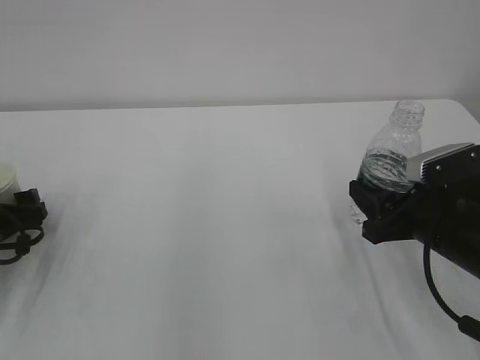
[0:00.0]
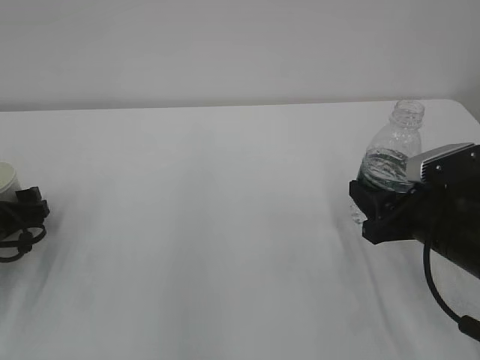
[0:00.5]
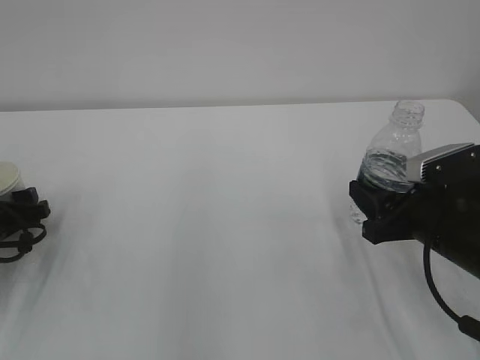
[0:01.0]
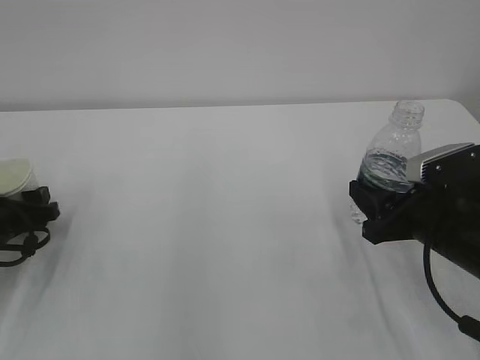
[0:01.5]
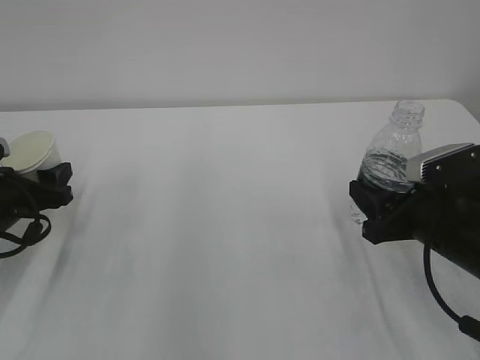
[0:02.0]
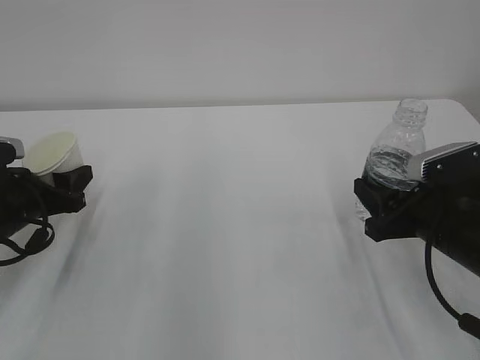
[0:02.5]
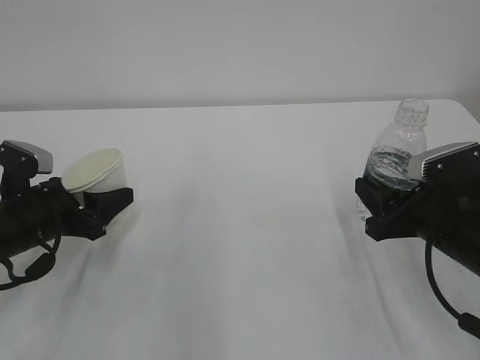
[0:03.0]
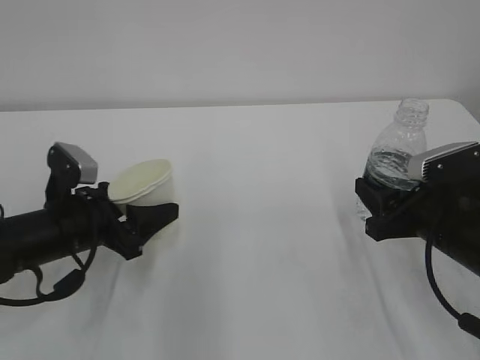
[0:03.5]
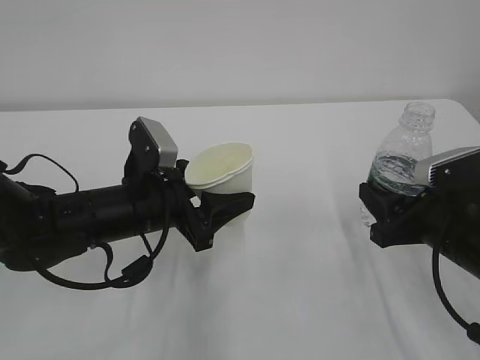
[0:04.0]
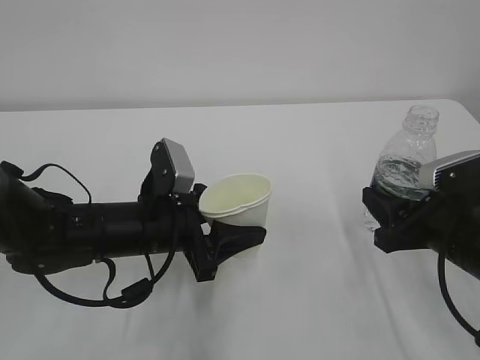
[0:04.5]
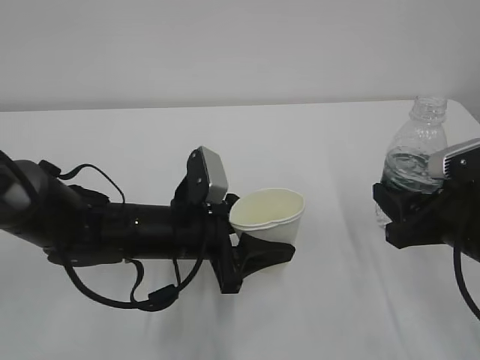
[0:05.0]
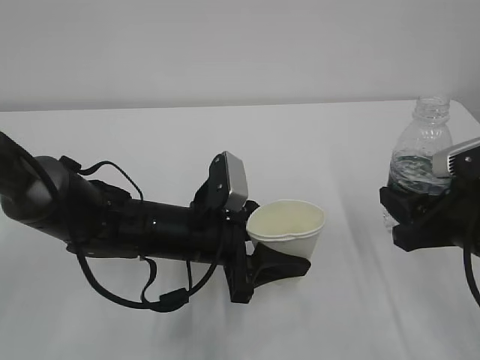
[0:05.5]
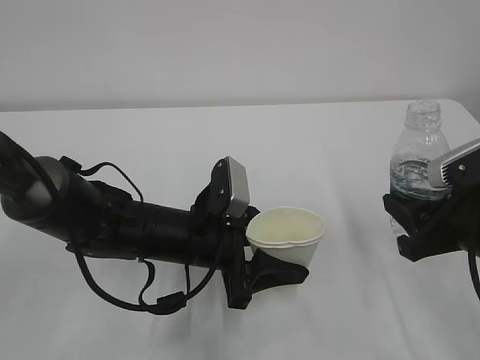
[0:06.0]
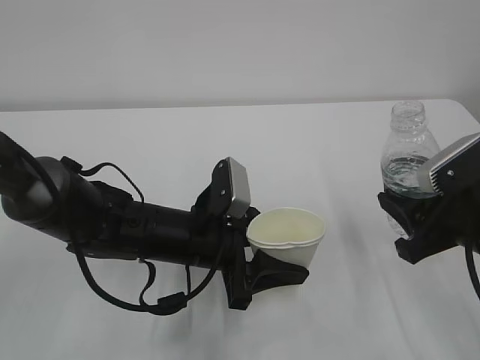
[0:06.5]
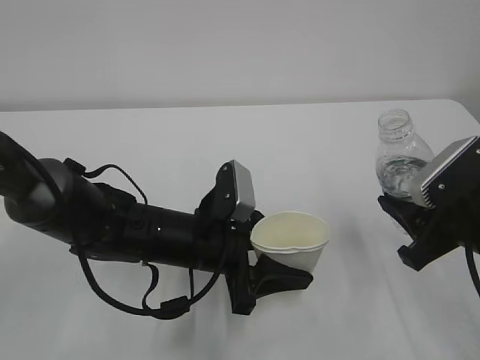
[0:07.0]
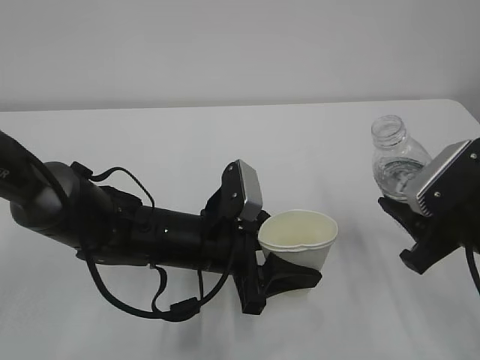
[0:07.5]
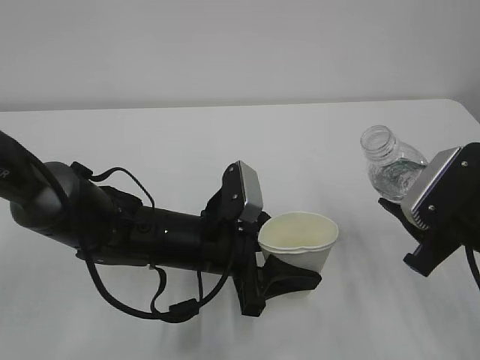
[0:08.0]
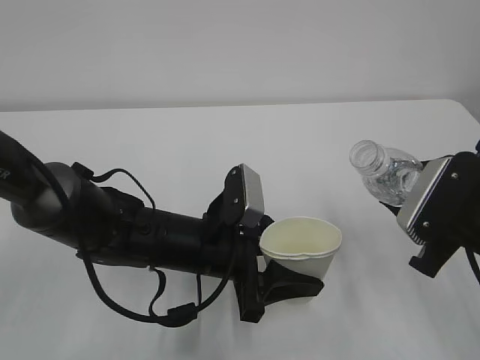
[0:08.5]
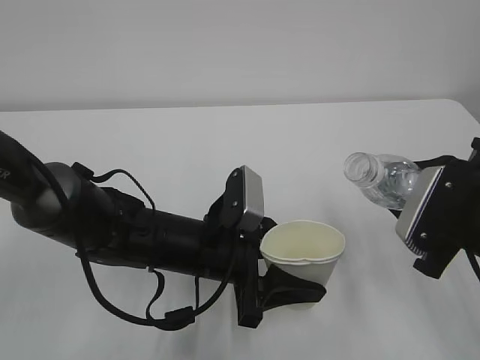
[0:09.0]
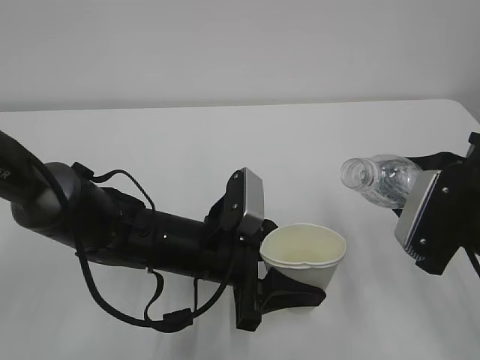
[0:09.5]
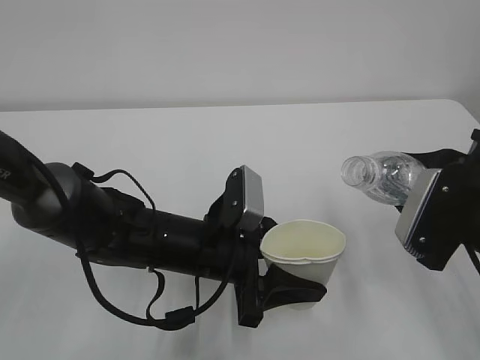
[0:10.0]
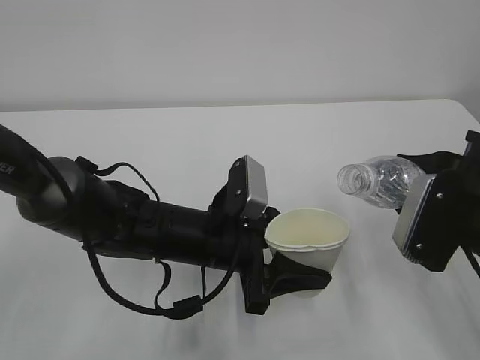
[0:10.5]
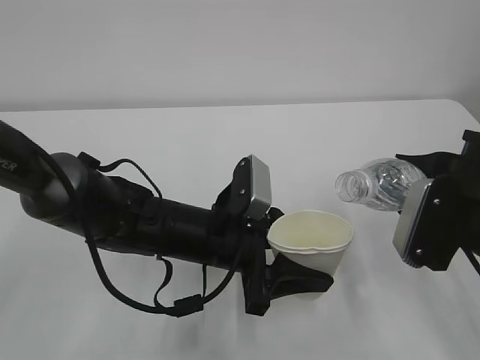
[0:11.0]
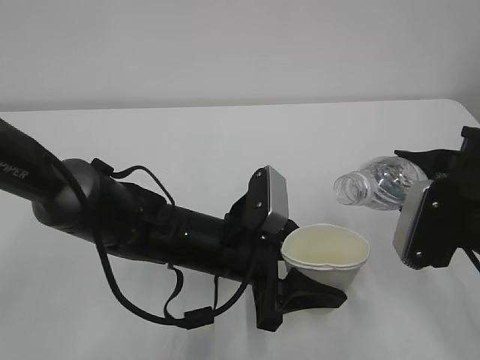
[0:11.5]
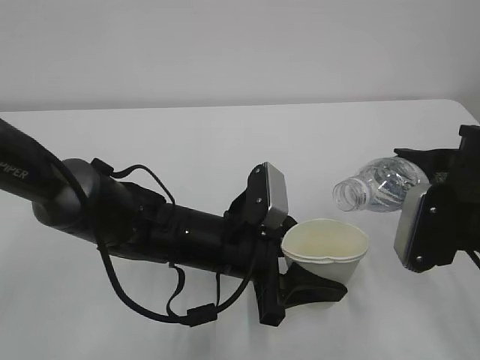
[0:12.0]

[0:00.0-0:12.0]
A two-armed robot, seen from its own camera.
0:00.0 to 0:02.0: The left gripper closes its fingers.
0:02.0 to 0:04.0: The left gripper shifts roughly 20 cm to the right.
0:04.0 to 0:06.0: The left gripper goes roughly 5 cm to the right.
0:10.0 to 0:12.0: There are only small adjustments of the grippers.

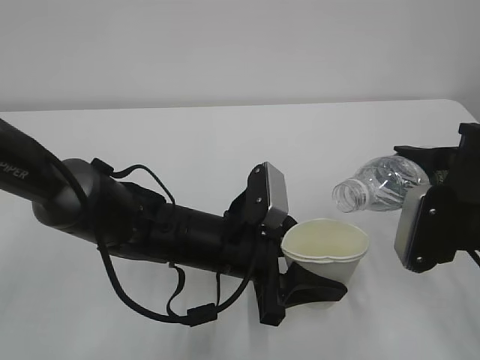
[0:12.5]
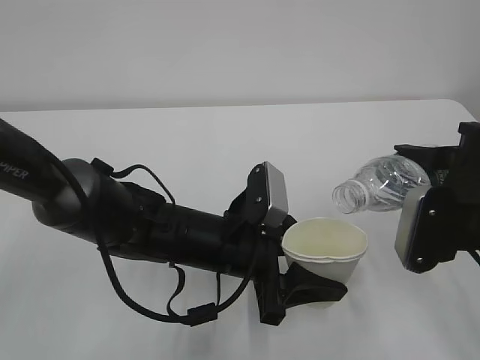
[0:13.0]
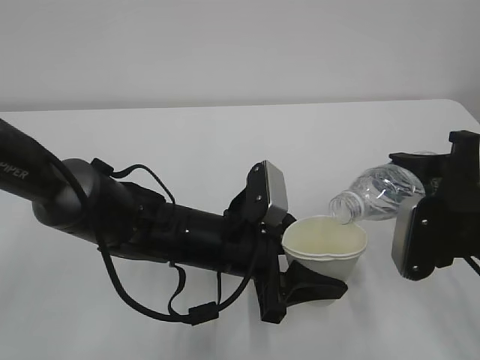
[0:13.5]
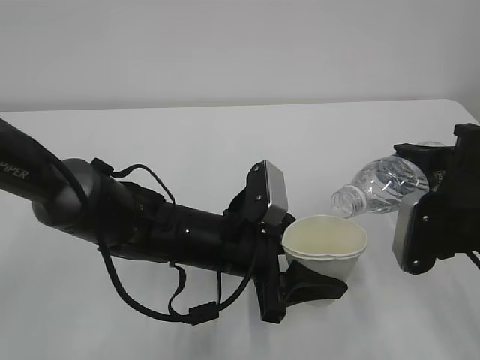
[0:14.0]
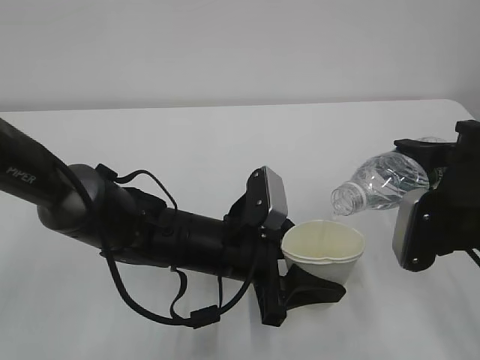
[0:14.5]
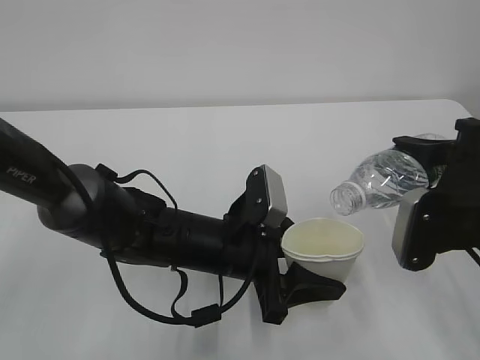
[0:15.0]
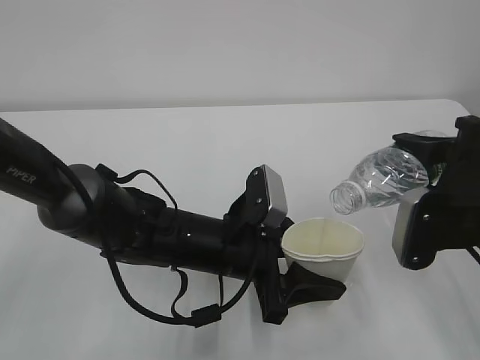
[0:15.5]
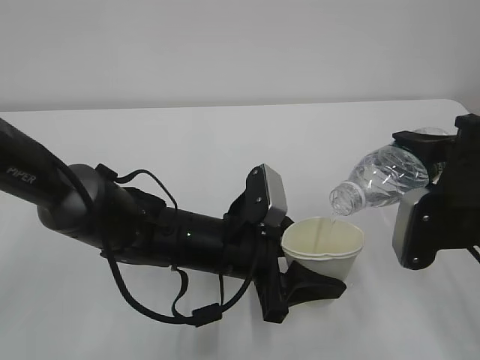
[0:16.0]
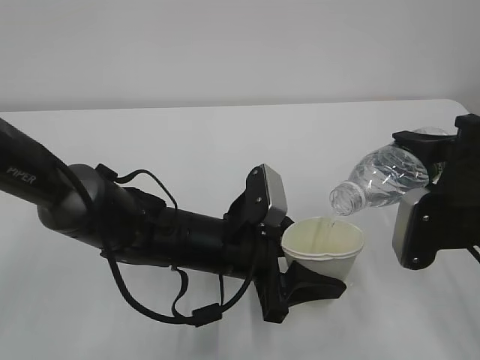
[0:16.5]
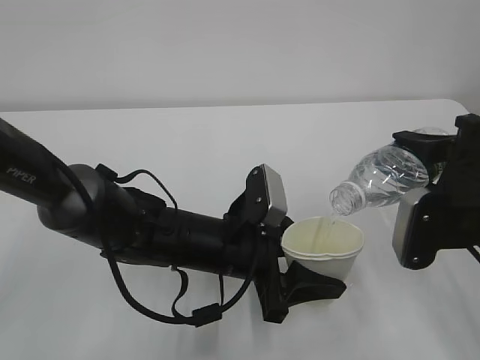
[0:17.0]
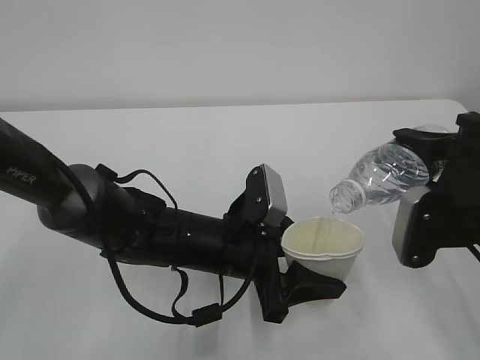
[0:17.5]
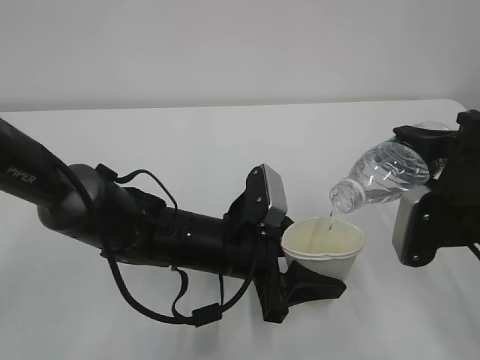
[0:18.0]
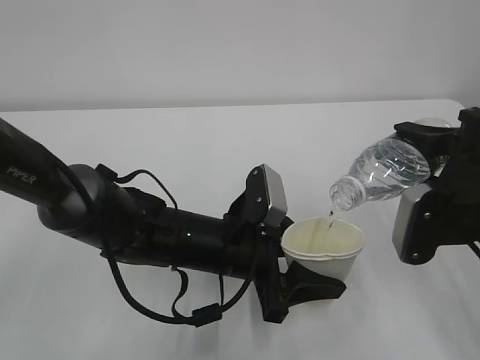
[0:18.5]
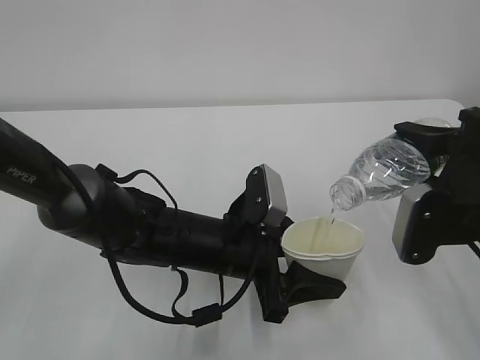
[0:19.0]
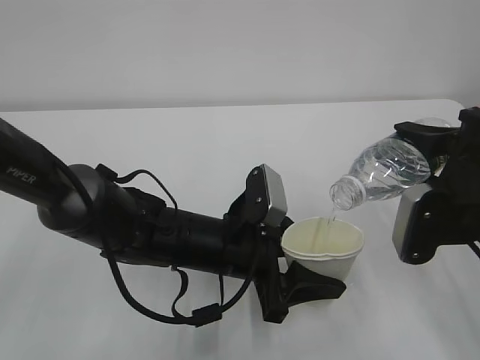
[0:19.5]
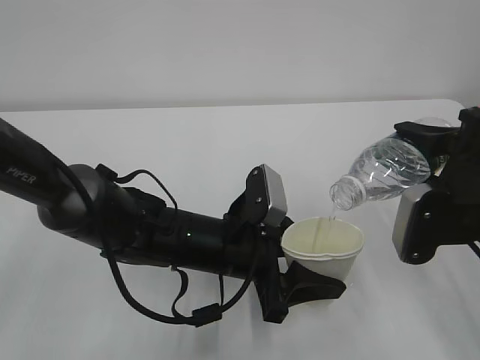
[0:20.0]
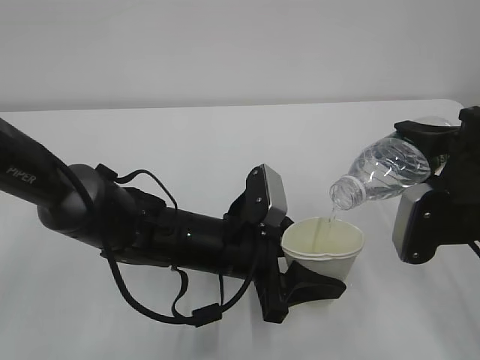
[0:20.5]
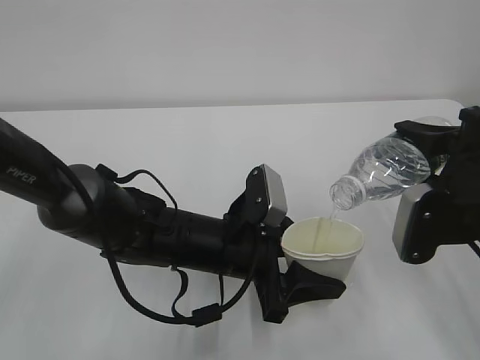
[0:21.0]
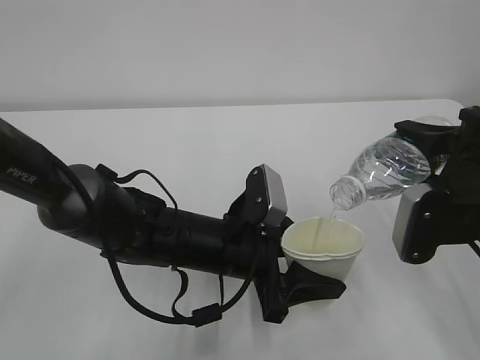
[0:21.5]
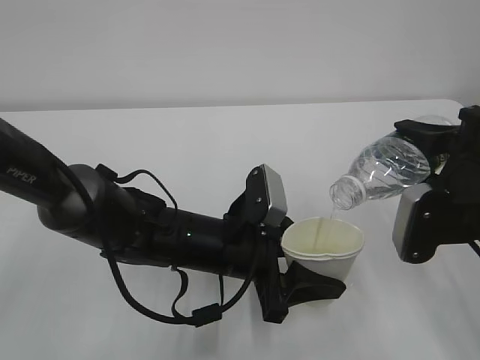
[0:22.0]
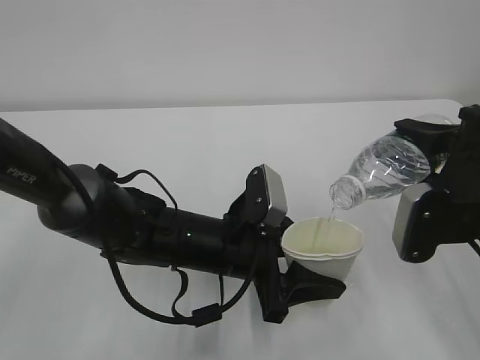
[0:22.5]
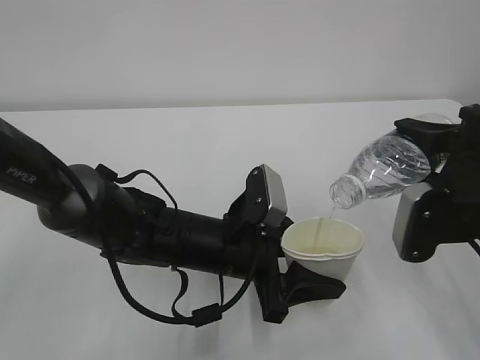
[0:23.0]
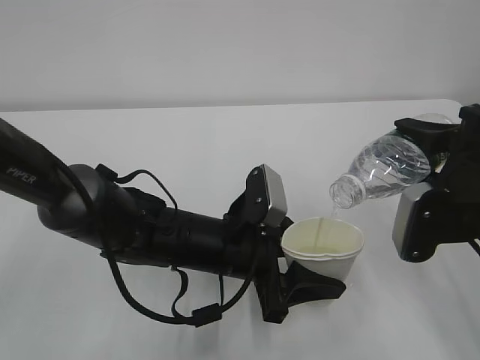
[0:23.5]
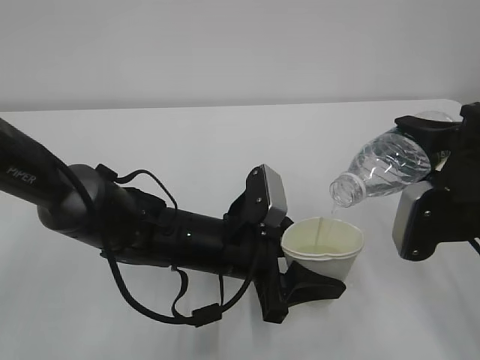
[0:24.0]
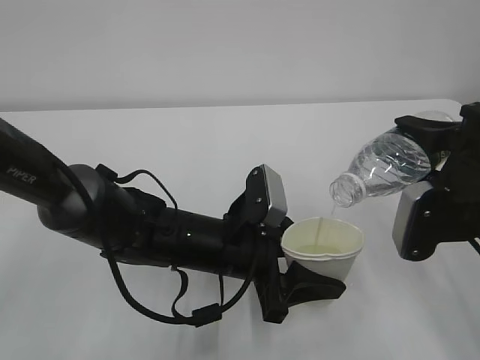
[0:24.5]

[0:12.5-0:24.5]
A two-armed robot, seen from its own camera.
0:12.5 to 0:14.5: There are only small adjustments of the grippers.
0:14.5 to 0:16.5: Both grippers stay put.
0:16.5 to 0:22.5: Neither gripper changes place.
0:22.5 to 0:24.5: Both grippers stay about where they are.

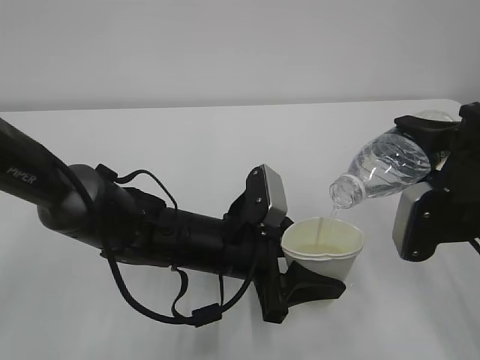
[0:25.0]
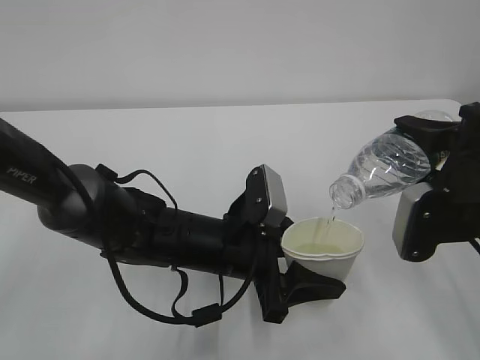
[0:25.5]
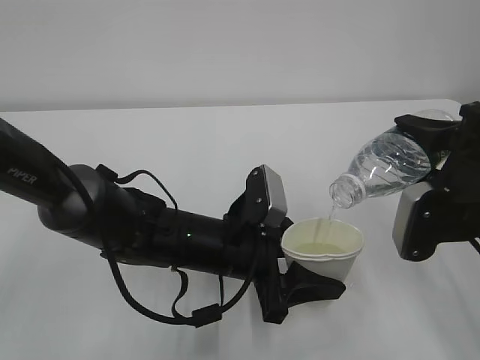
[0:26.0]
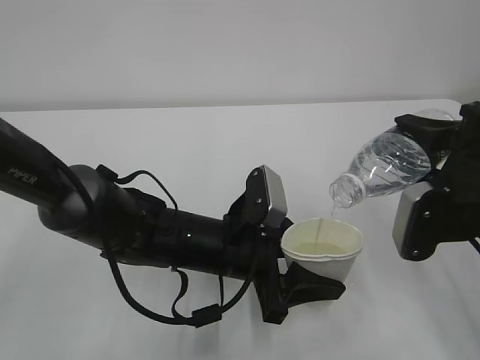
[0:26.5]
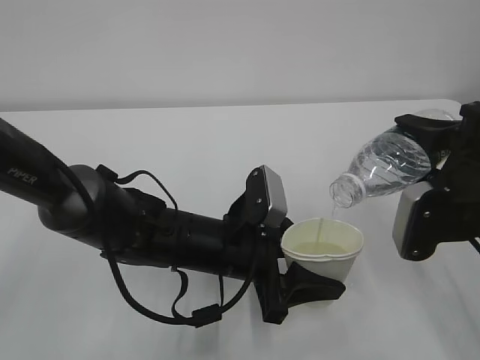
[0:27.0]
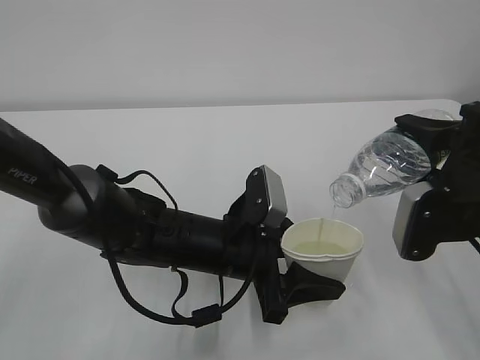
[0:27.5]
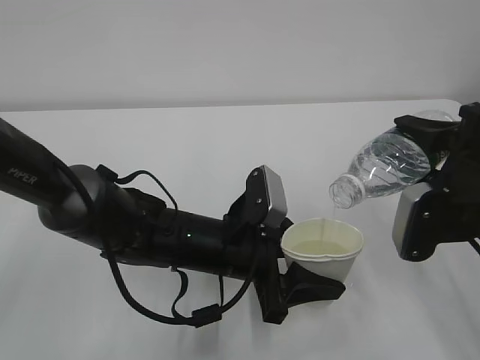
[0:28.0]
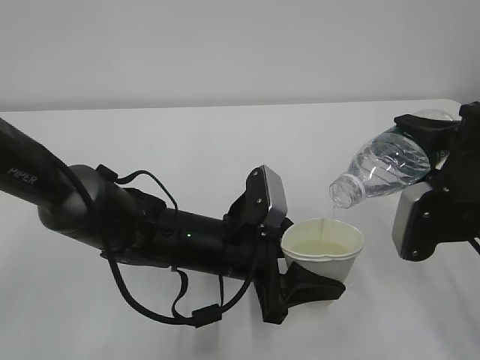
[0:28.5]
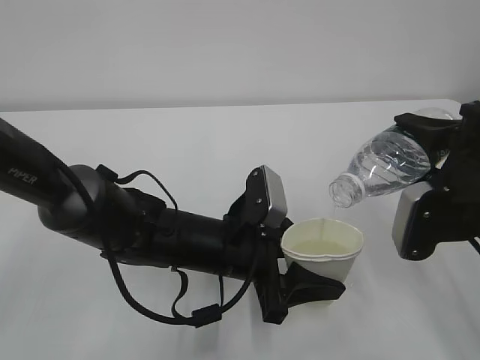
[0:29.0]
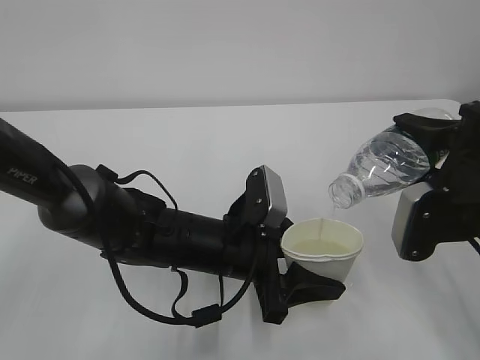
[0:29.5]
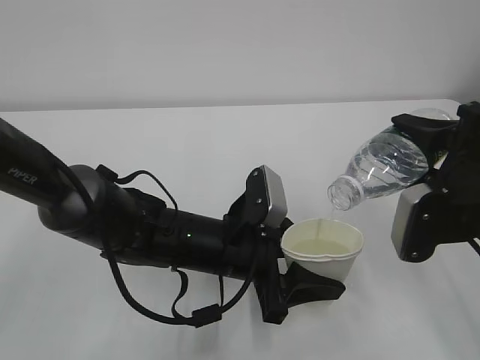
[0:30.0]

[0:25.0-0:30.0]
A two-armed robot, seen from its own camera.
0:25.0 to 0:30.0: Both grippers stay about where they are.
